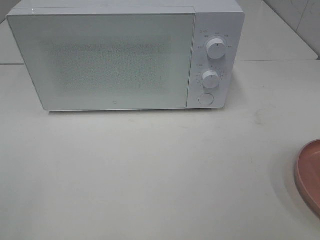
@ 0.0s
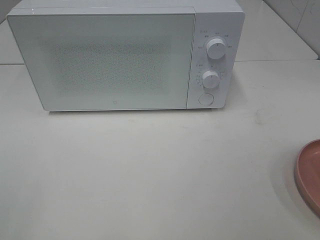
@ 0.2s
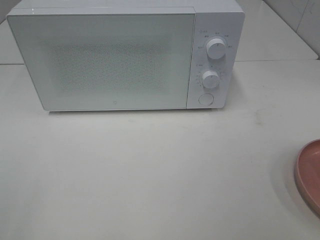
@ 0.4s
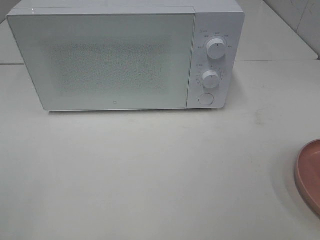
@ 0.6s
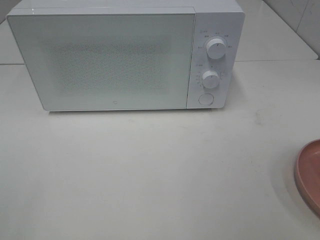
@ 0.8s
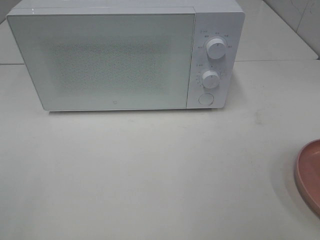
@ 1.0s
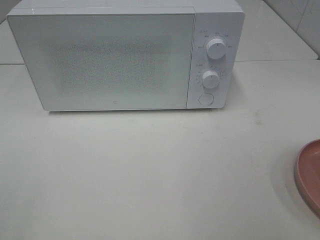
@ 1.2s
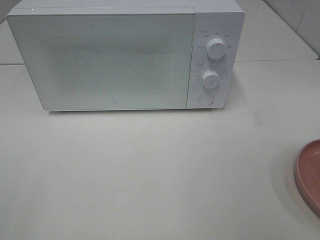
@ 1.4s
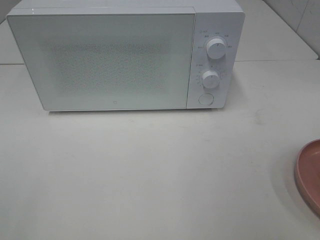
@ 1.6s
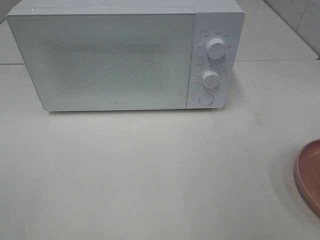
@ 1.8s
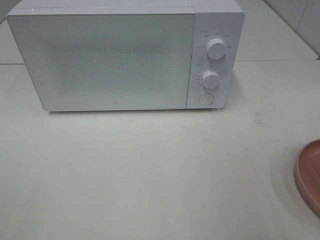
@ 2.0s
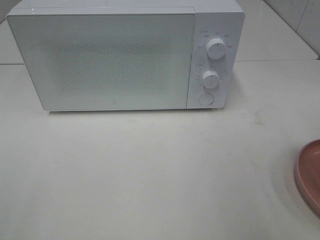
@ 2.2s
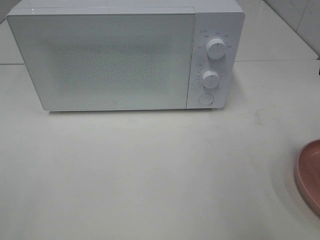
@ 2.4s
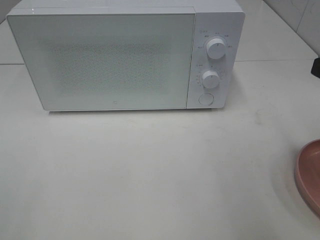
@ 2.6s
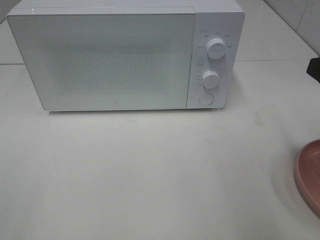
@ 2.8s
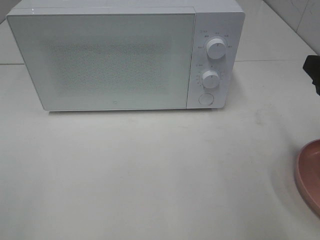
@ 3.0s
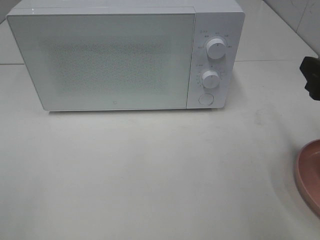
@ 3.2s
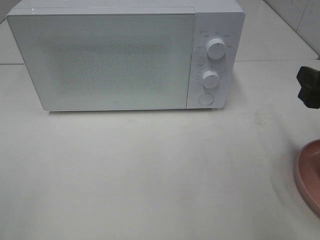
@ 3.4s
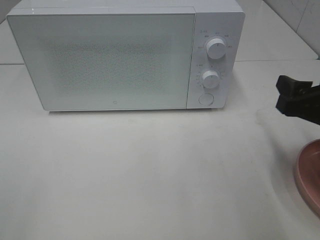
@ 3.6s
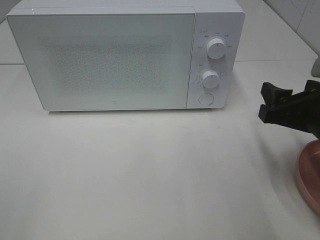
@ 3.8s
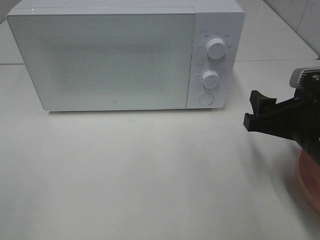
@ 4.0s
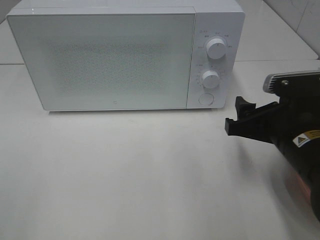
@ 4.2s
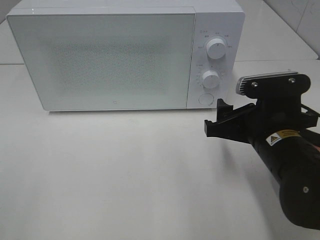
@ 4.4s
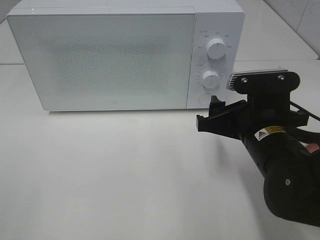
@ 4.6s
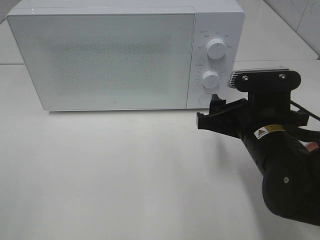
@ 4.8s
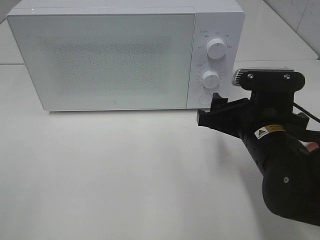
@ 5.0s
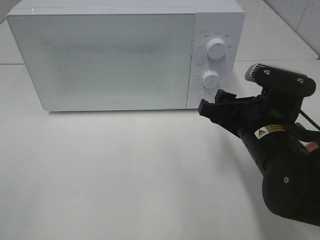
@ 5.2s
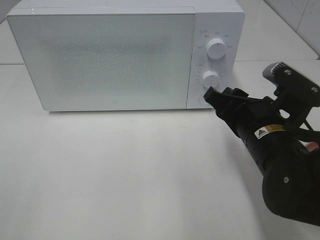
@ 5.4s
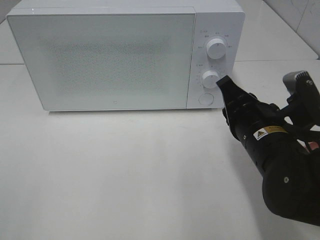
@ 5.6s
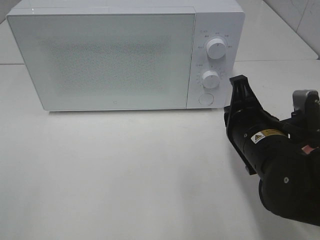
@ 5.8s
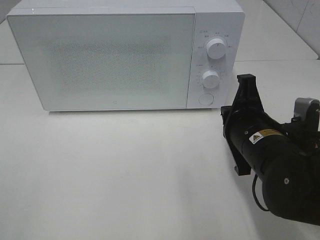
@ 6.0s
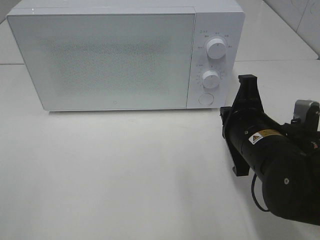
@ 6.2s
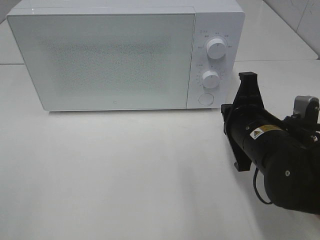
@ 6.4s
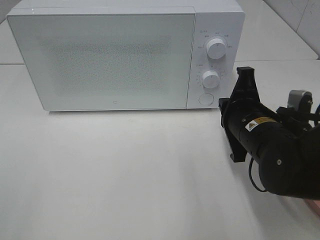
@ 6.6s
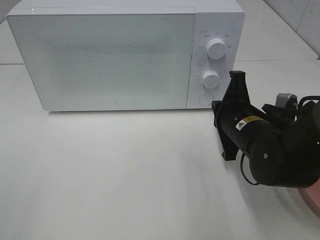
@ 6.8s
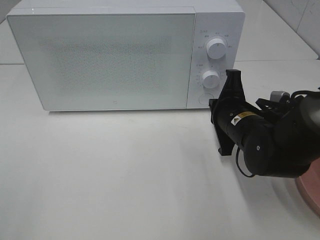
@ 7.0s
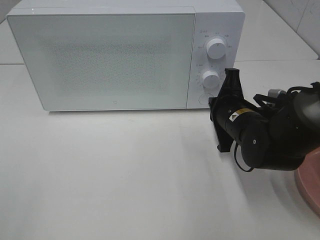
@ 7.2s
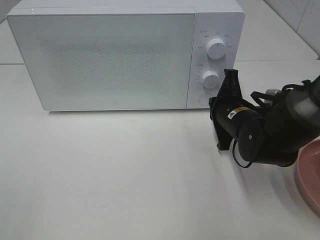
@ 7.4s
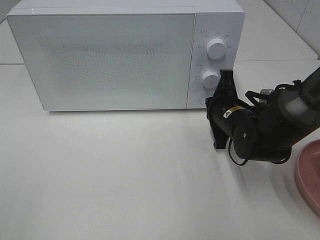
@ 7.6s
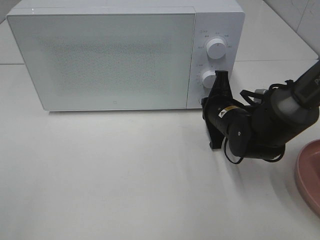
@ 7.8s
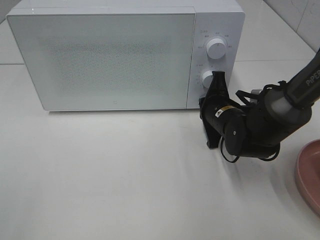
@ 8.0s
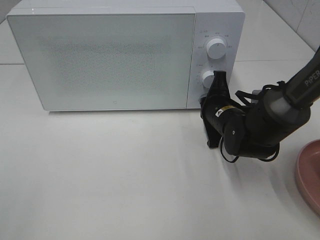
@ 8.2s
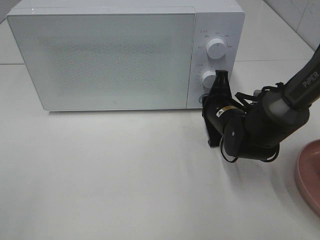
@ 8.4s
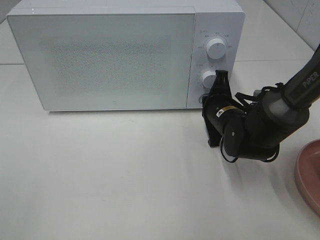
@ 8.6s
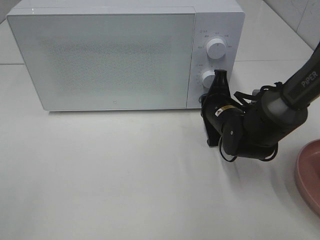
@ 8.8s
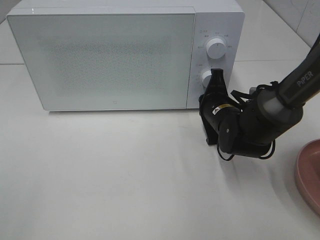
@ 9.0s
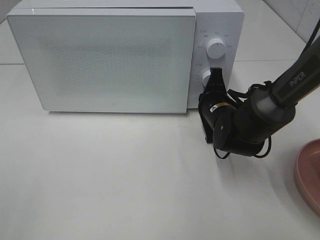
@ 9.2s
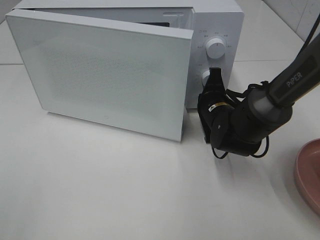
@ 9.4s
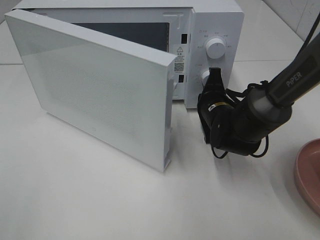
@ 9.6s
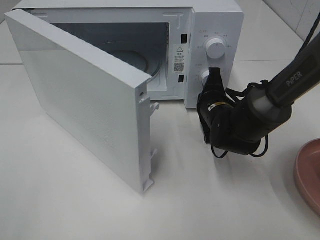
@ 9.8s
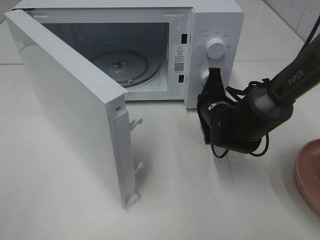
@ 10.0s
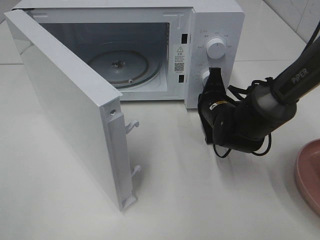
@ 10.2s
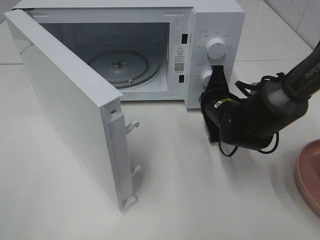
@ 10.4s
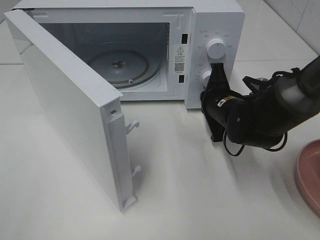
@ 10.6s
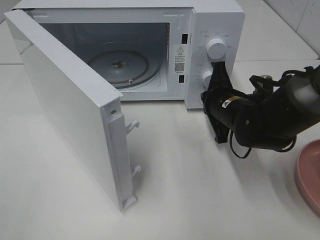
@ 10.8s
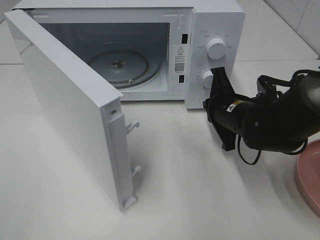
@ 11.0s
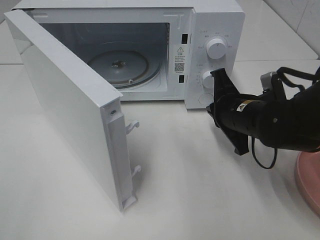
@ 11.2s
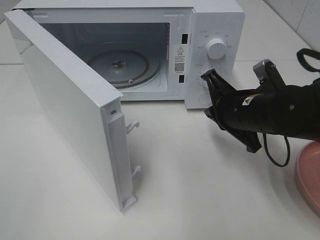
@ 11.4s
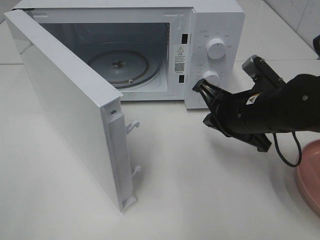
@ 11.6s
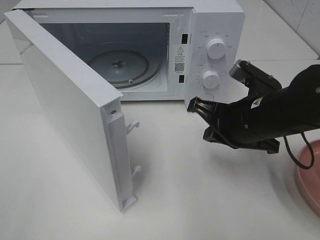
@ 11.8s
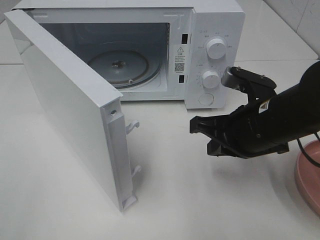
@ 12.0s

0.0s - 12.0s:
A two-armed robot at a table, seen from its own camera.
Task of the whole recording: Heat the burger.
Step, 0.0s - 10.6s: Right hand: press the switch.
1.6s - 3.0s: The right gripper moves forward and downward, about 15 cm.
3.0s - 4.4s: The right gripper shifts about 15 cm to the left and downward.
4.4s - 6.0s: The right gripper closes up.
6.0s - 7.6s: The right gripper moves forward and downward, roughly 10 cm.
7.6s - 9.0s: The grippers make only small movements.
10.4s - 12.0s: The right gripper heads backward and upward, covering roughly 15 cm.

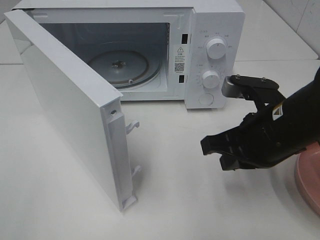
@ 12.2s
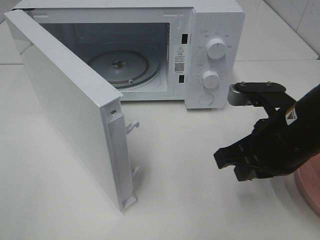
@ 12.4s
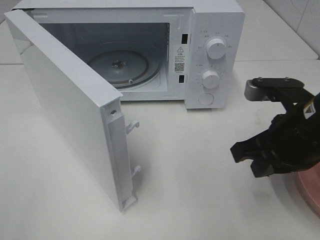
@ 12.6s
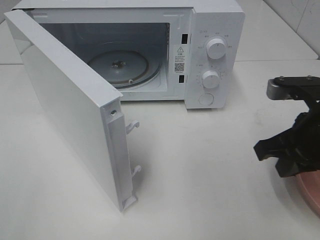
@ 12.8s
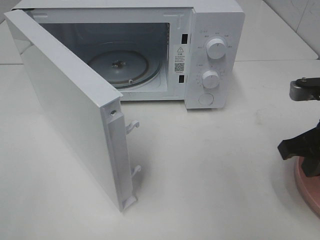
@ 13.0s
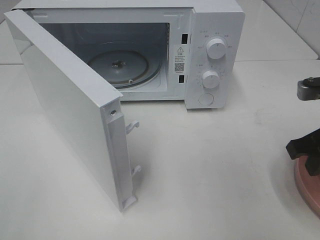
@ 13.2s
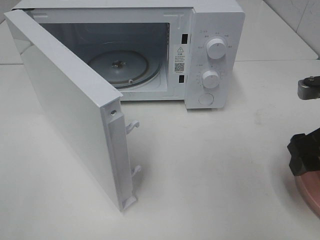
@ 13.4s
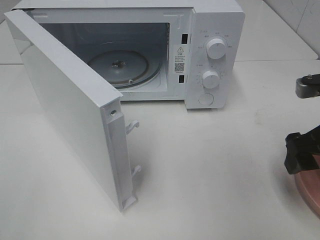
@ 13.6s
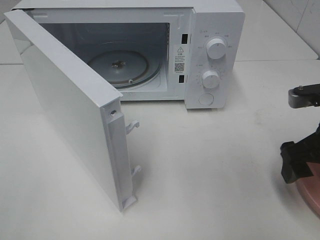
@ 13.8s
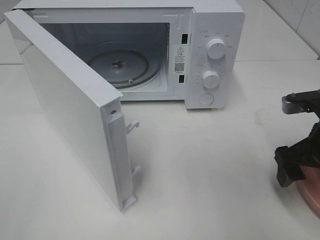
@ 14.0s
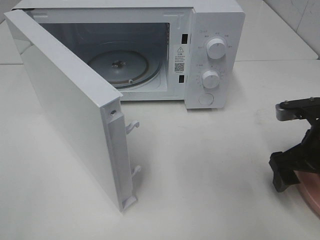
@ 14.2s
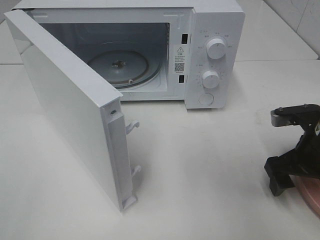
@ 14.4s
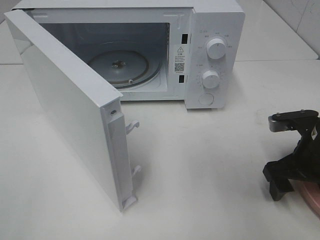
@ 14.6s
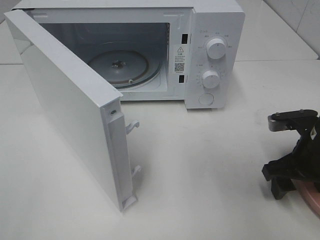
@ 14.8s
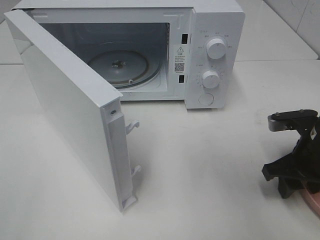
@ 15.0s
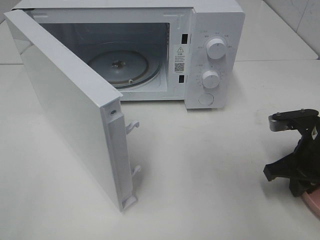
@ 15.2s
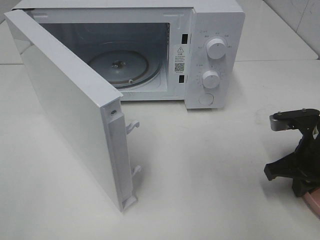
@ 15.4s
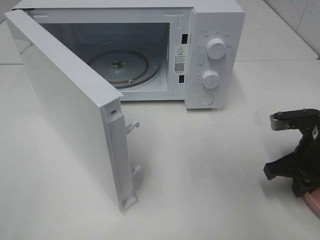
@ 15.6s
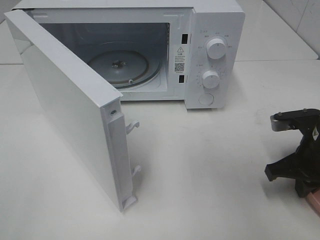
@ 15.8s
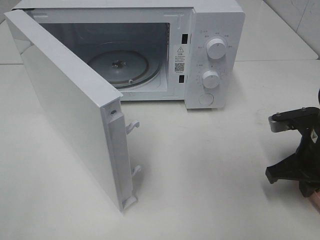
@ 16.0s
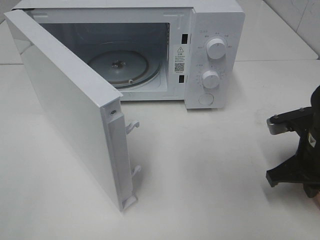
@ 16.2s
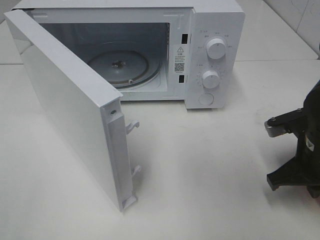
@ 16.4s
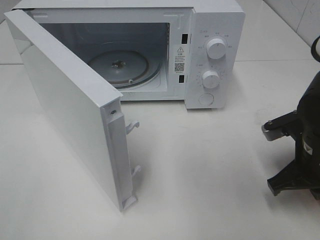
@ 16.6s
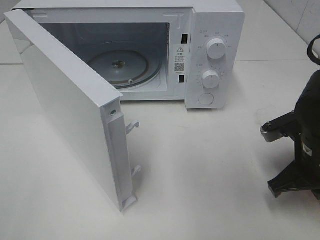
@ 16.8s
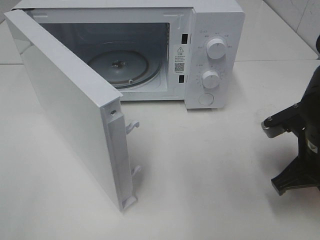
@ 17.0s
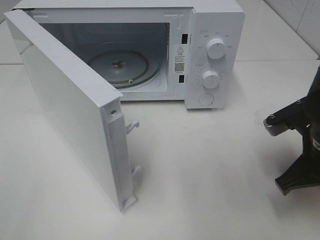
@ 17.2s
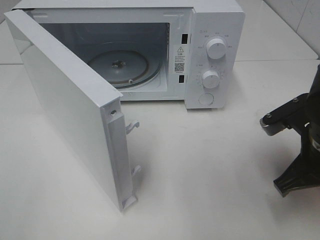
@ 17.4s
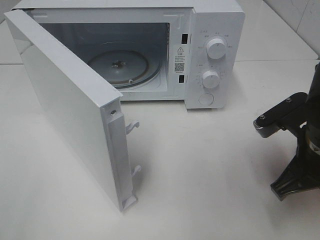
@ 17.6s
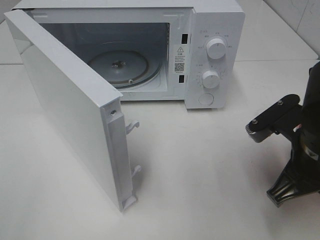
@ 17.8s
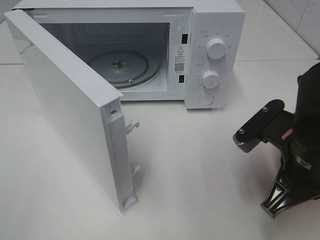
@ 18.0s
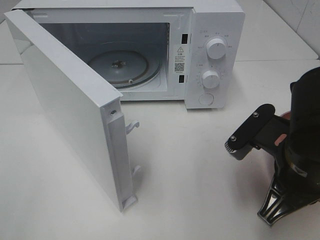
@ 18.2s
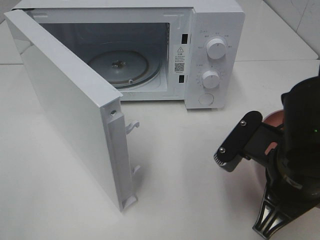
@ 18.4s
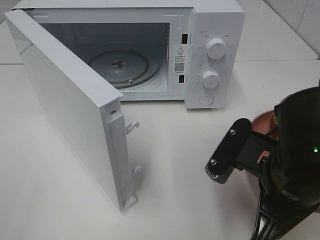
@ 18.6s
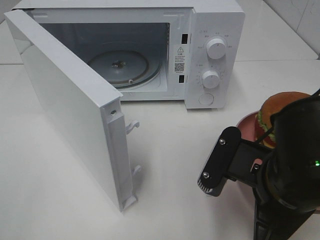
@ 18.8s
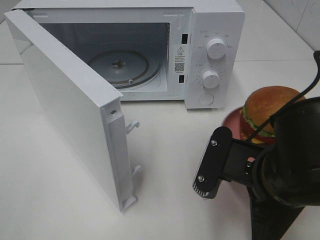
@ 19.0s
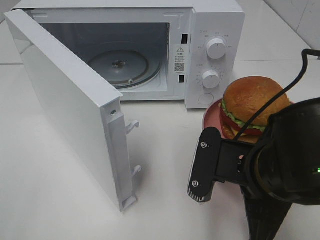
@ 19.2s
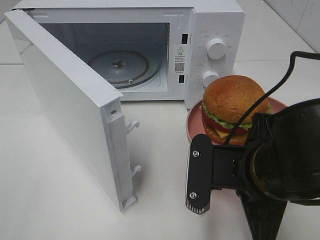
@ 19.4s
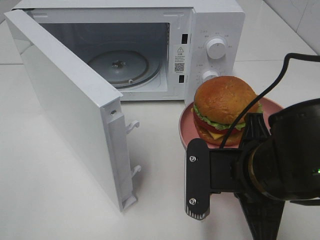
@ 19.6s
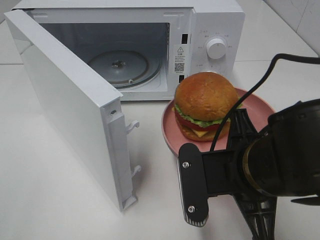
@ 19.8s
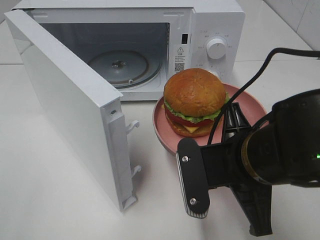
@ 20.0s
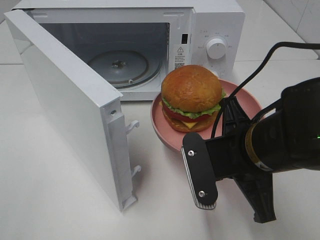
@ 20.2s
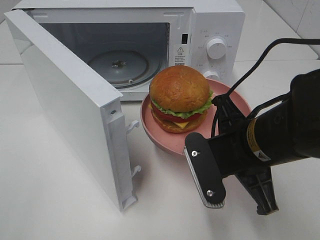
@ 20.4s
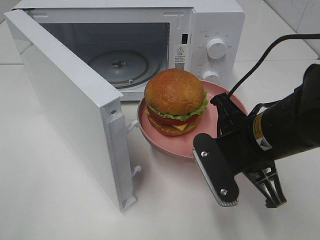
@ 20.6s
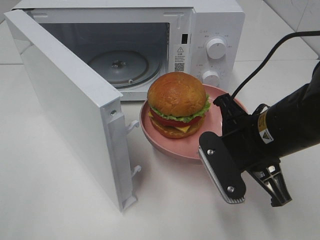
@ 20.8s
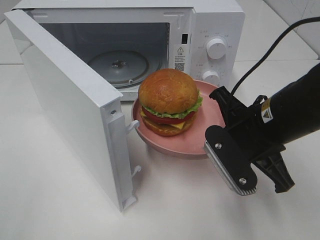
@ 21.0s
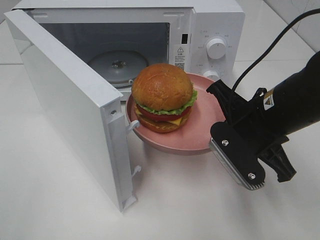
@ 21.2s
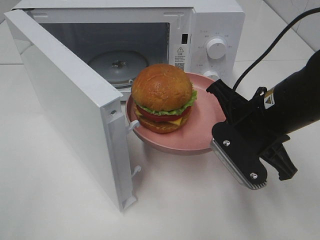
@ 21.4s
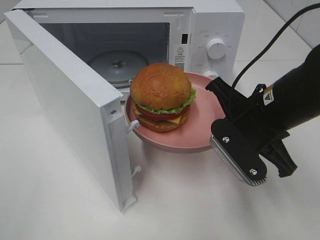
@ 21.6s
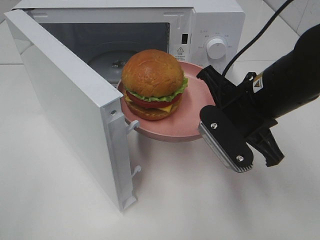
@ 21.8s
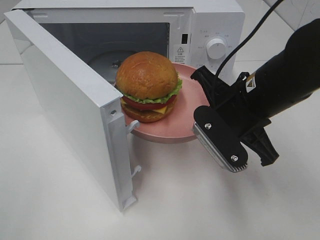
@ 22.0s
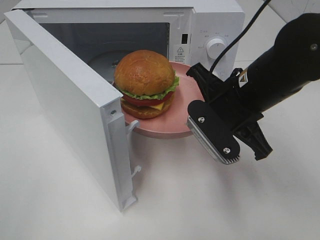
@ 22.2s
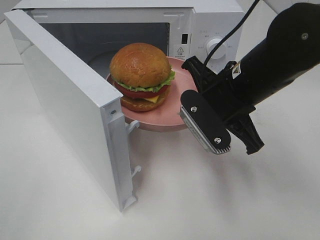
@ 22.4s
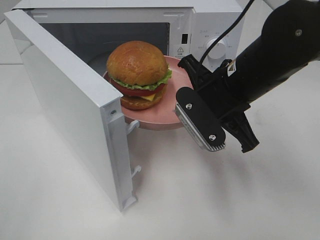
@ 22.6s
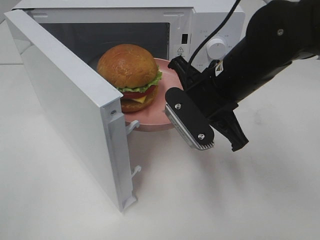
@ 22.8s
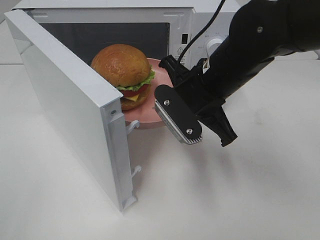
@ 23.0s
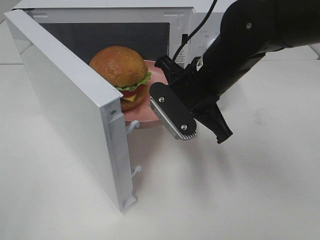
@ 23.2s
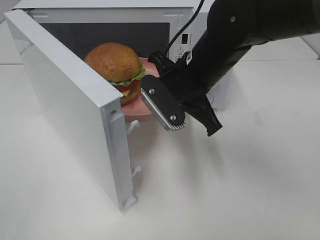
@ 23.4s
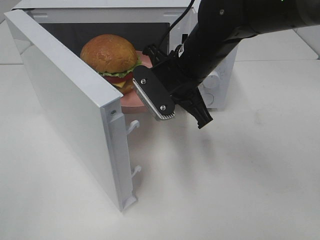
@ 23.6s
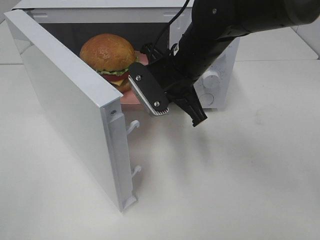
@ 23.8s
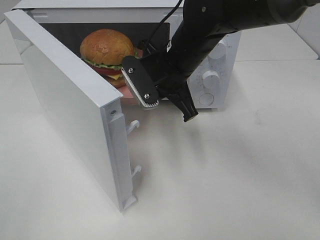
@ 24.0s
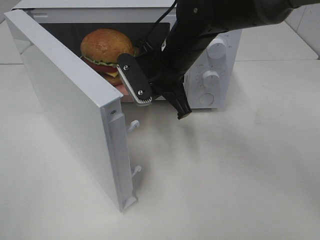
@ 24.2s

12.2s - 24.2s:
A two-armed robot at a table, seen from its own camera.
Task of the whole recording: Heat the burger.
Step, 12.2s - 15.2s: Right hand: grab the plate with the hamburger.
12.2s - 13.8s: The right gripper moves to the right, roughly 10 cm, and opens its fingers.
13.8s - 15.2s: The right gripper moves downward, roughly 5 cm, and closes its fingers.
15.2s - 16.6s: The grippers move only a little.
16.6s - 18.2s: The right gripper travels to the left and backward by some 10 cm.
18.2s - 19.8s: The right gripper is displaced to the left by roughly 5 cm.
19.8s - 21.2s: The right gripper heads forward, covering about 10 cm.
21.2s - 22.6s: The right gripper ends up approximately 5 cm from where it was.
22.6s - 24.2s: The right gripper travels forward and to the left by about 10 cm.
